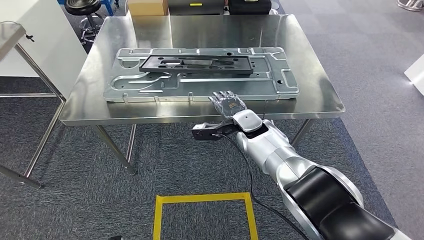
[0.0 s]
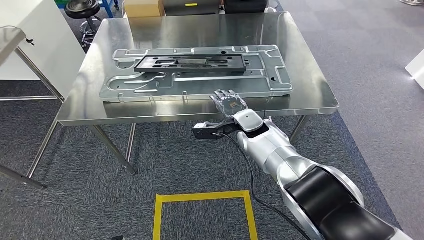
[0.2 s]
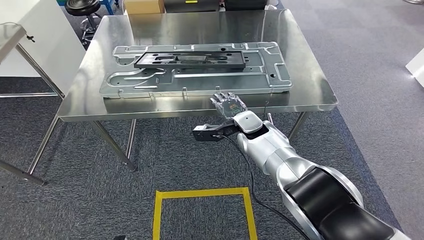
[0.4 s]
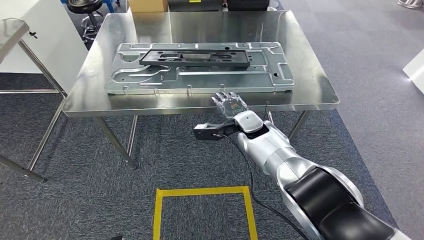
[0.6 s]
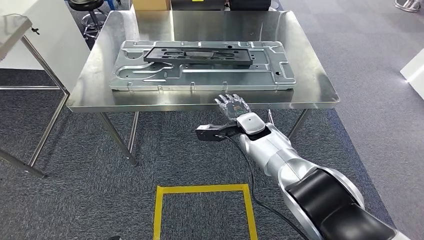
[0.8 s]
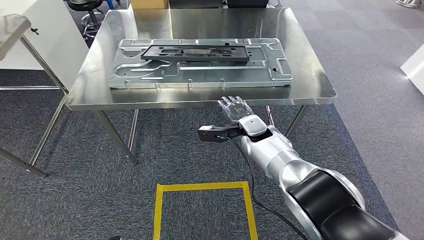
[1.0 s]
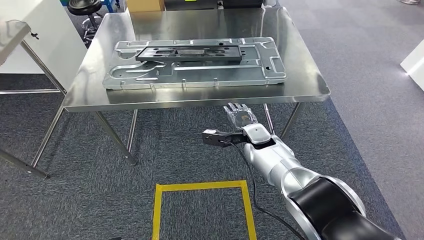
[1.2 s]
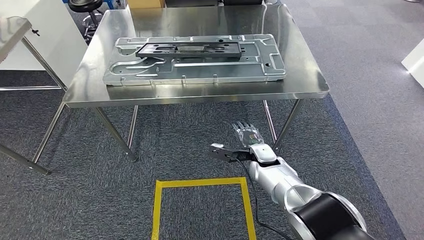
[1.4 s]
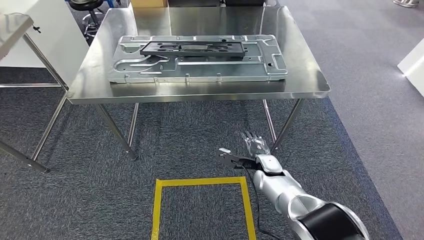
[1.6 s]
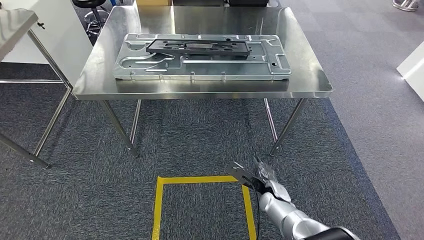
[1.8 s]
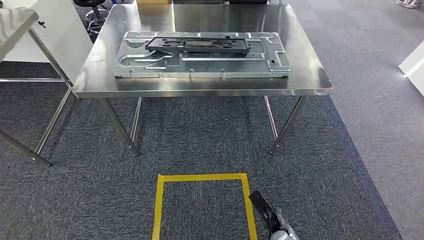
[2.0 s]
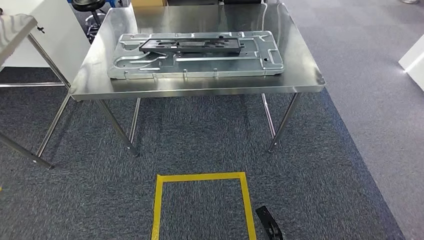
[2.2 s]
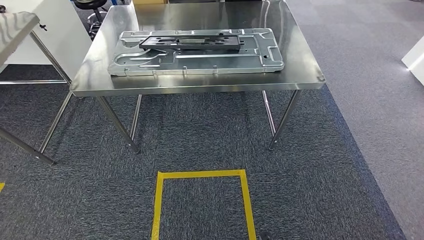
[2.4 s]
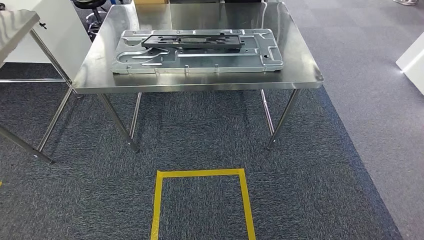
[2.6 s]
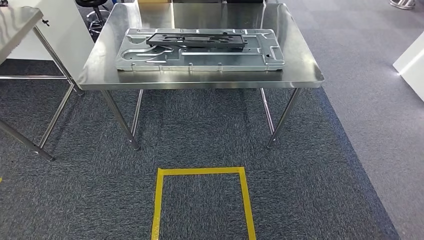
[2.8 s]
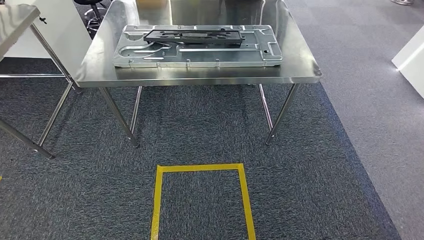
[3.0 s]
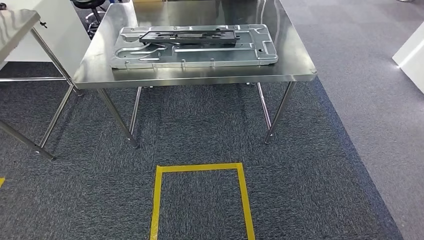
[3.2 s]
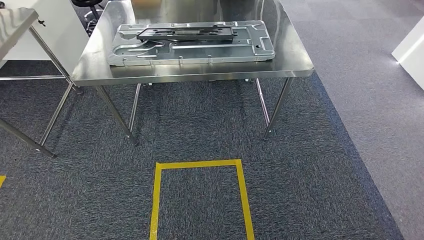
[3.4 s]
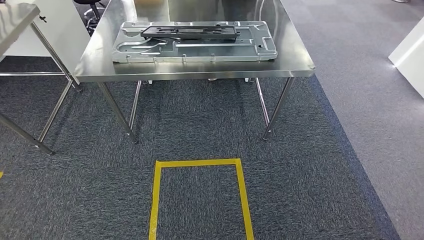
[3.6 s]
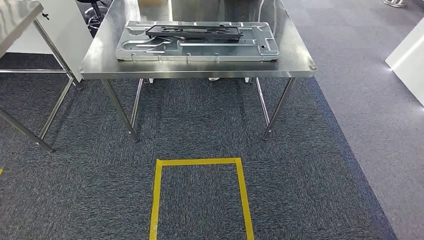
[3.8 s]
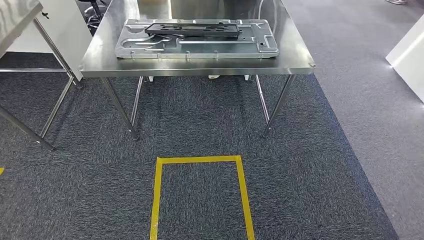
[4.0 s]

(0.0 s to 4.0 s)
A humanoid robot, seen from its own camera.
Step, 0.0 s - 3.8 s: Return to the initial position at the shelf.
